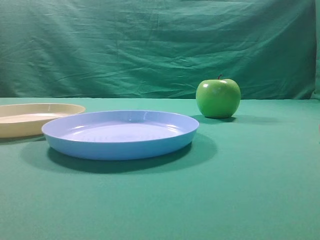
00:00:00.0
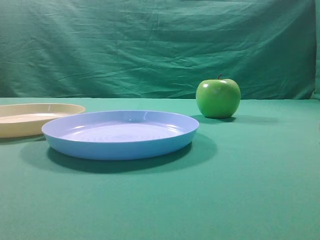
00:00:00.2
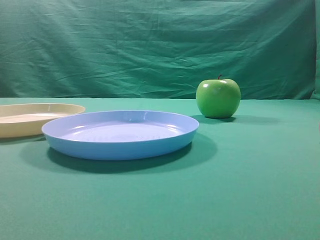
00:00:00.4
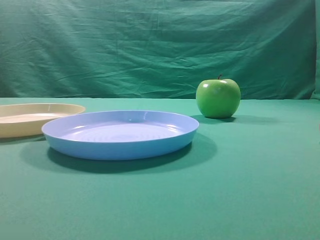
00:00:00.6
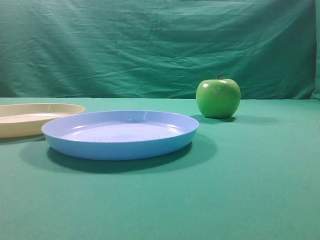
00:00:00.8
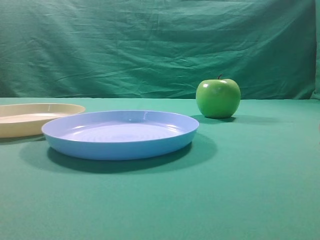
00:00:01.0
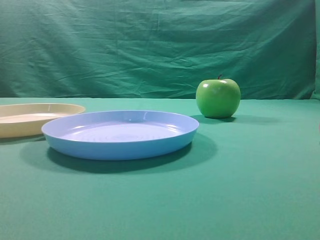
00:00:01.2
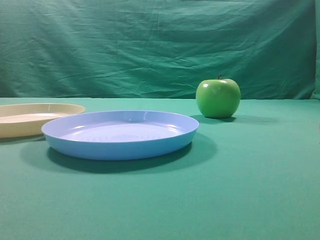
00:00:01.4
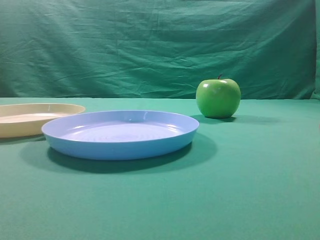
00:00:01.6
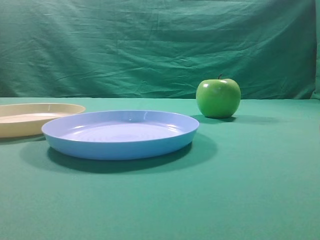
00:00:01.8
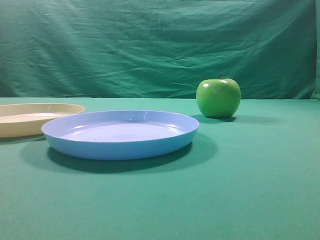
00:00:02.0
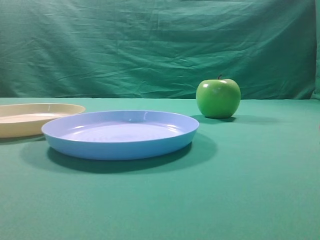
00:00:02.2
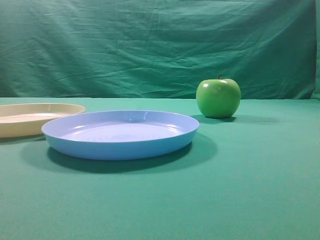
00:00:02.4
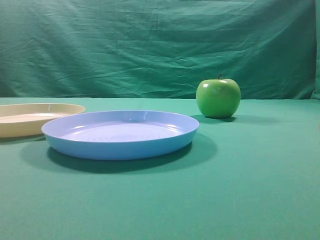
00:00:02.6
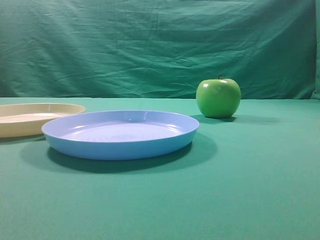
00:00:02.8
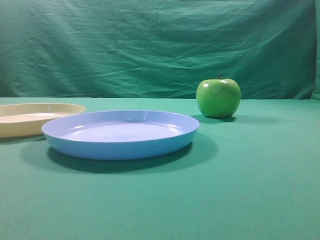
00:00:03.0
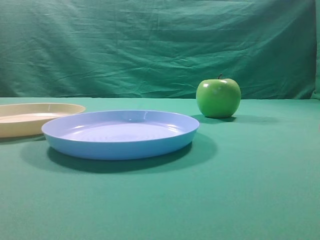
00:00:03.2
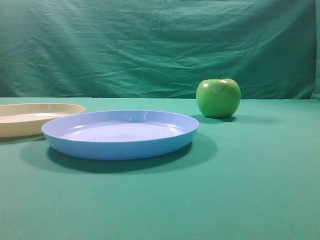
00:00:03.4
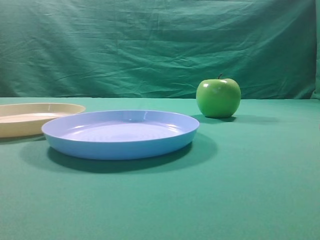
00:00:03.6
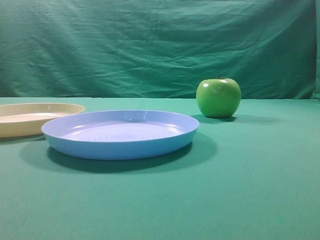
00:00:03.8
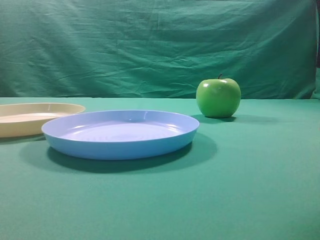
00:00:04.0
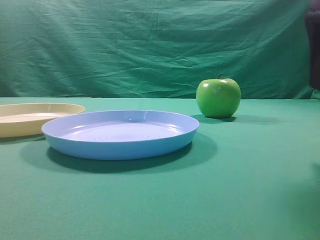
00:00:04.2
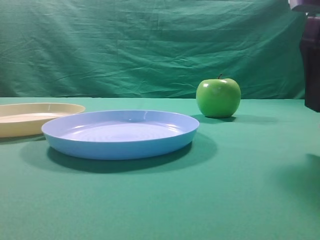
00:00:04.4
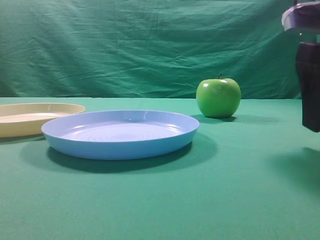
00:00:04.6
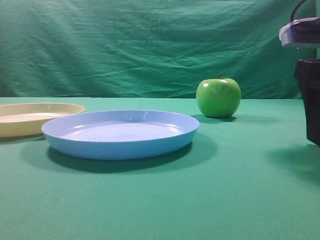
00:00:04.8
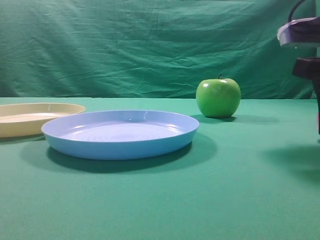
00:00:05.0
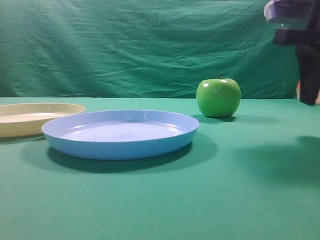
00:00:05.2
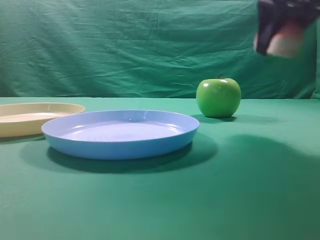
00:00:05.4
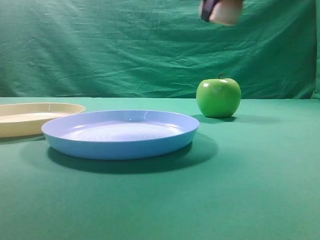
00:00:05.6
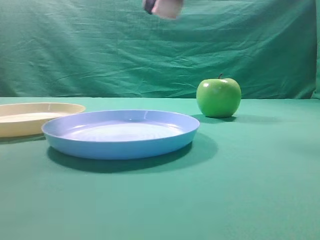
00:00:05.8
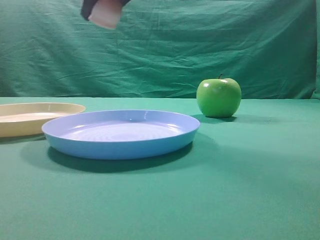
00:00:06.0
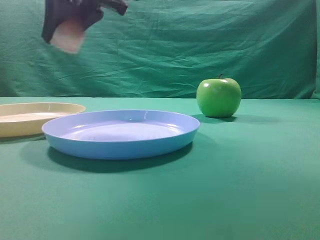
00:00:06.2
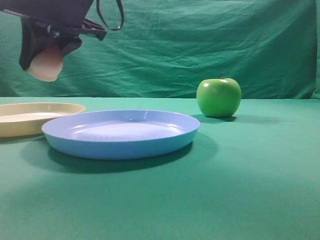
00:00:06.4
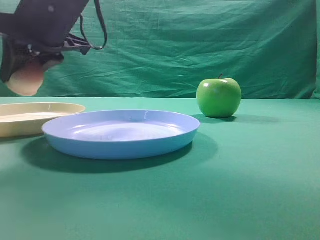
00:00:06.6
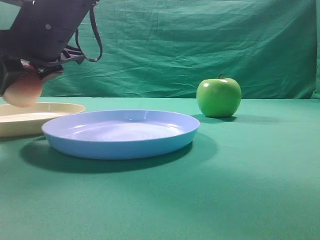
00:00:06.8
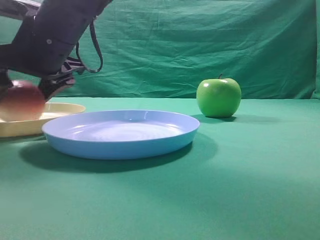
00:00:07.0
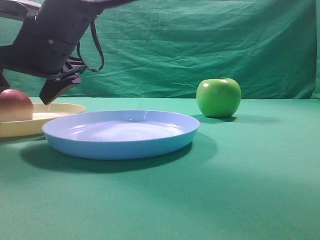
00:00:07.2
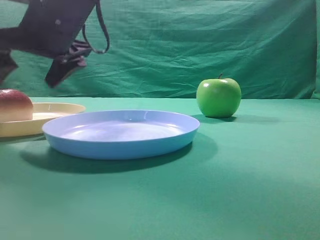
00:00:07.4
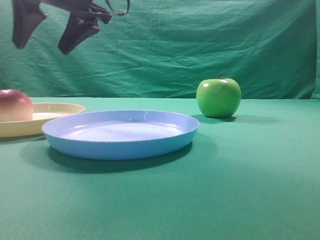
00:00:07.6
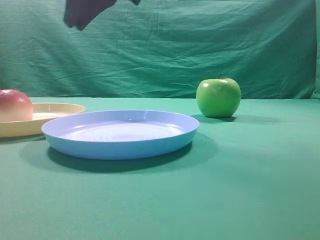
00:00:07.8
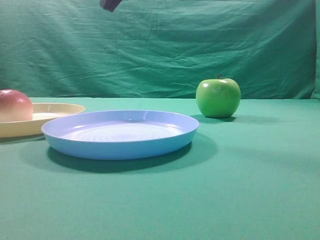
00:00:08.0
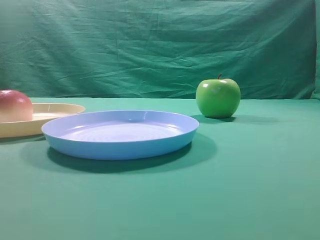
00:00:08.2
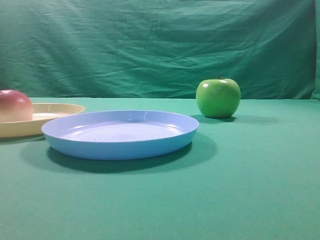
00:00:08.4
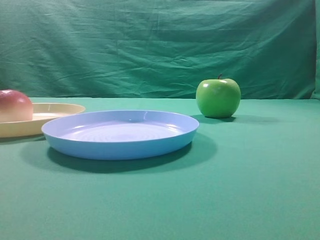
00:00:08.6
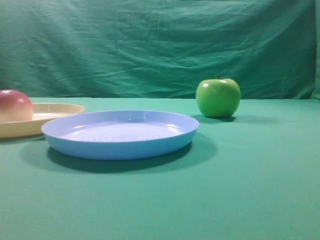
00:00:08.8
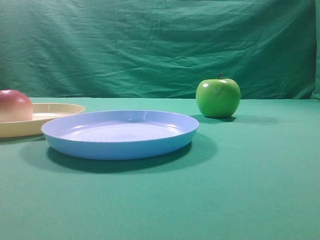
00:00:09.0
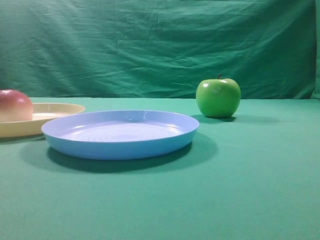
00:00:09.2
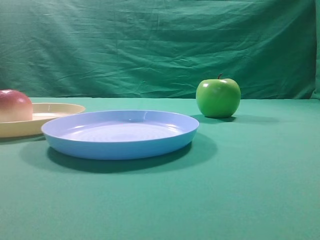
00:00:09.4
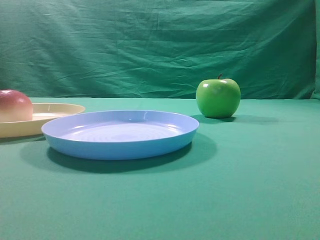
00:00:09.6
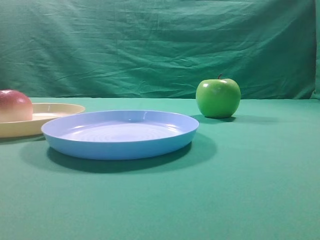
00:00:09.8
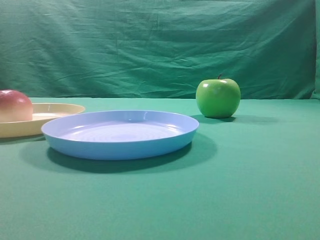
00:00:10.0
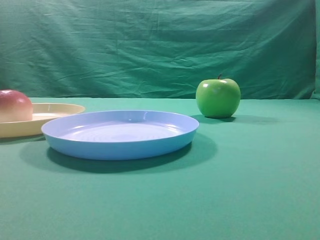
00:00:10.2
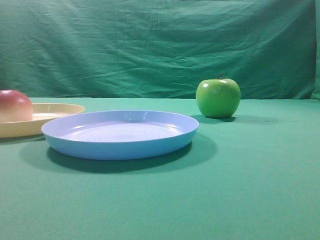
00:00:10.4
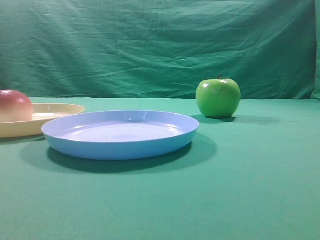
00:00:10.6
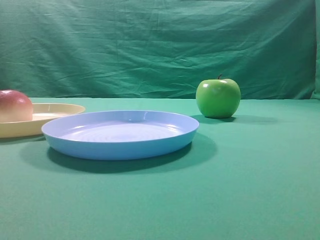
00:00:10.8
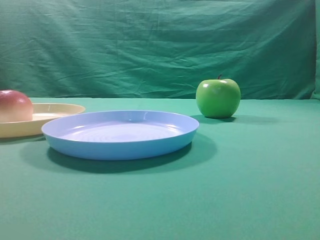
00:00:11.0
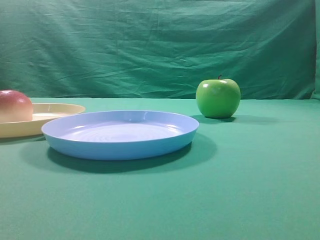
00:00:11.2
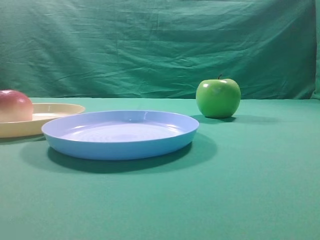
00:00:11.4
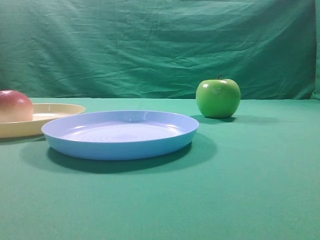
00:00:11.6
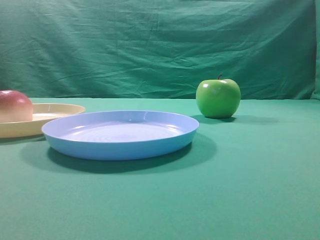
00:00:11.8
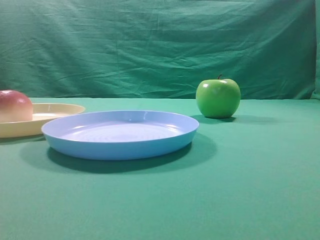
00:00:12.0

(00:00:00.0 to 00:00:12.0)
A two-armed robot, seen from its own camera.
Step, 00:00:05.4 - 00:00:07.4: Place the picked object on the yellow plate.

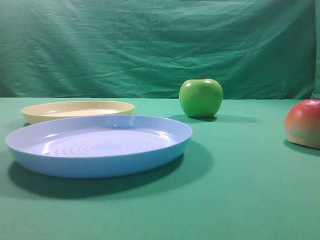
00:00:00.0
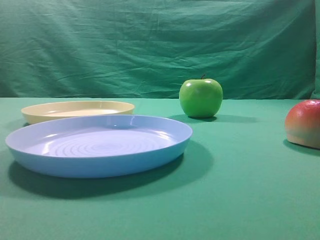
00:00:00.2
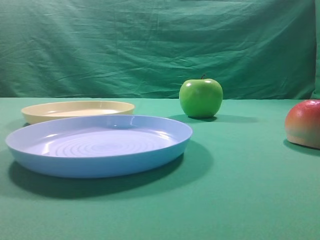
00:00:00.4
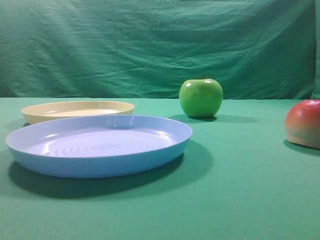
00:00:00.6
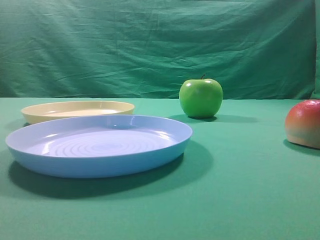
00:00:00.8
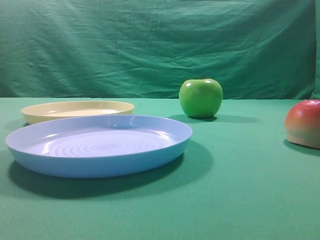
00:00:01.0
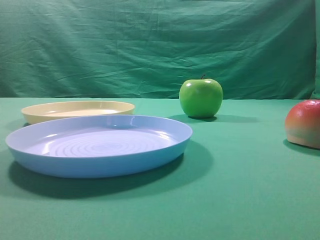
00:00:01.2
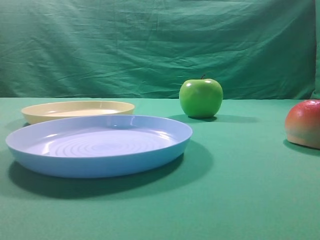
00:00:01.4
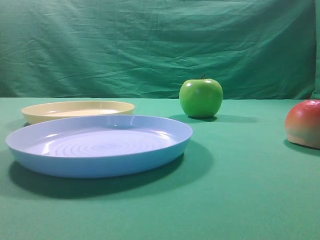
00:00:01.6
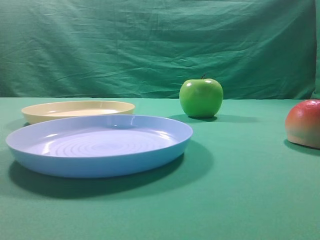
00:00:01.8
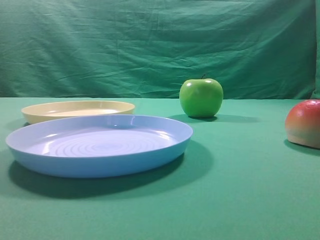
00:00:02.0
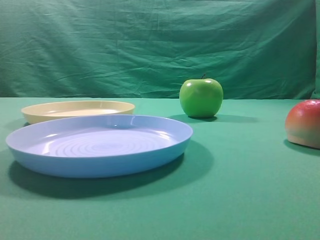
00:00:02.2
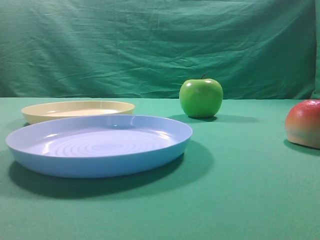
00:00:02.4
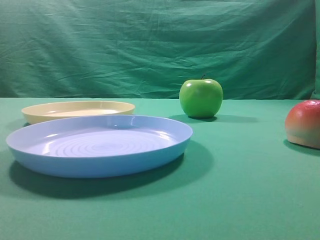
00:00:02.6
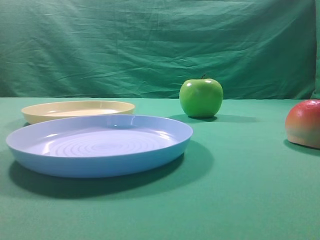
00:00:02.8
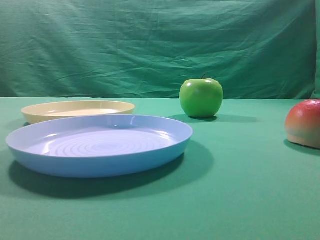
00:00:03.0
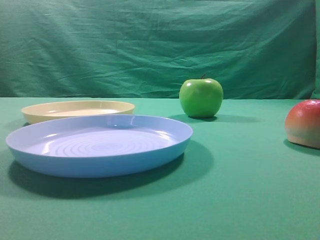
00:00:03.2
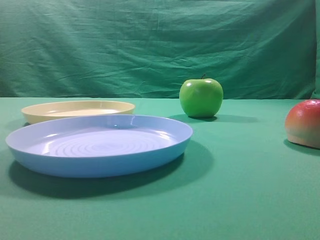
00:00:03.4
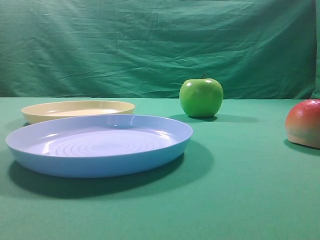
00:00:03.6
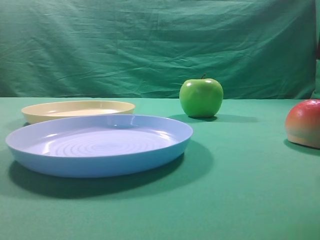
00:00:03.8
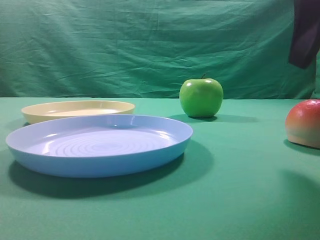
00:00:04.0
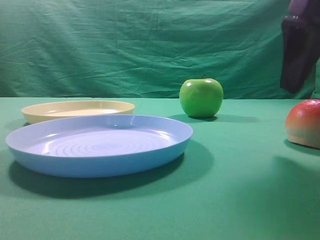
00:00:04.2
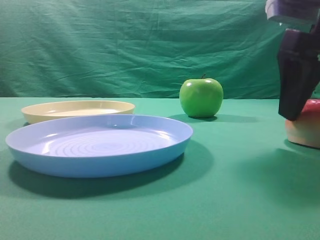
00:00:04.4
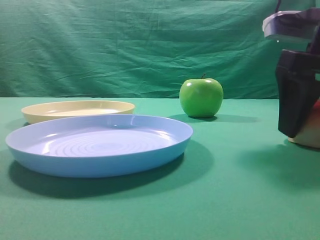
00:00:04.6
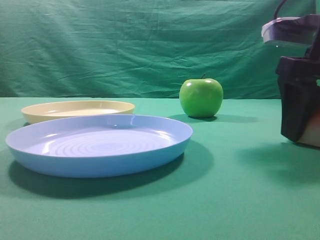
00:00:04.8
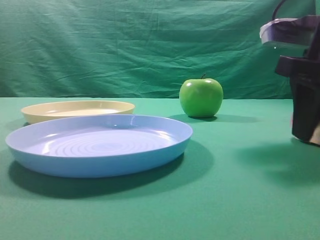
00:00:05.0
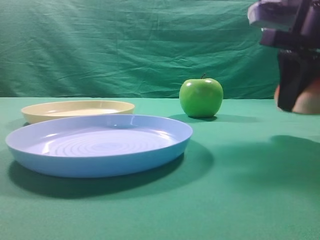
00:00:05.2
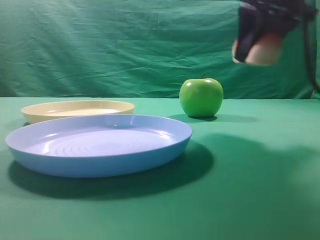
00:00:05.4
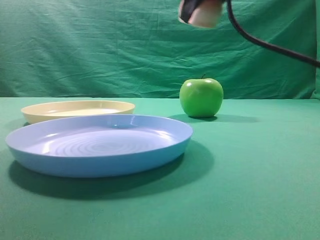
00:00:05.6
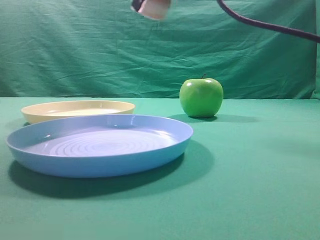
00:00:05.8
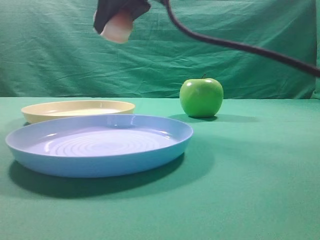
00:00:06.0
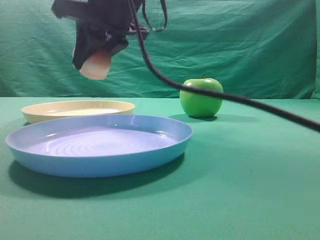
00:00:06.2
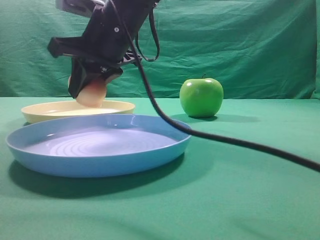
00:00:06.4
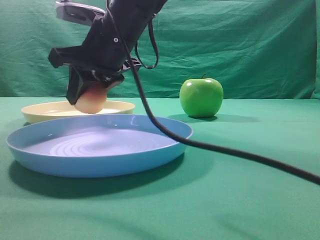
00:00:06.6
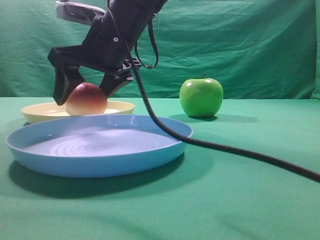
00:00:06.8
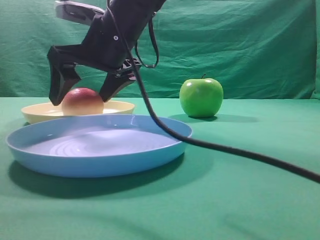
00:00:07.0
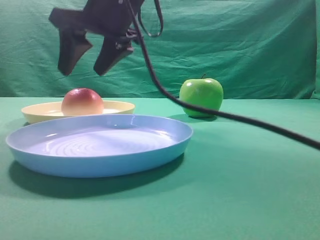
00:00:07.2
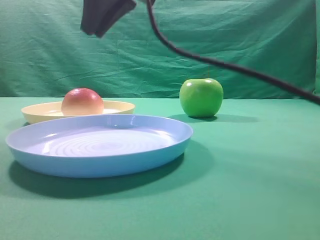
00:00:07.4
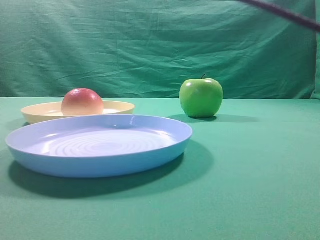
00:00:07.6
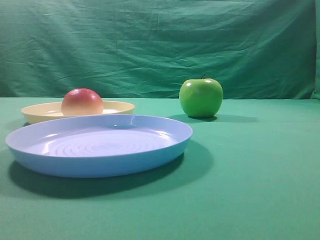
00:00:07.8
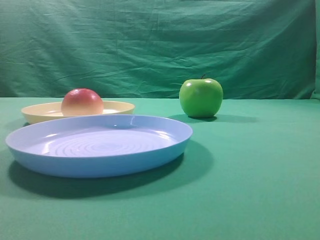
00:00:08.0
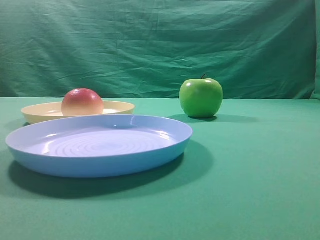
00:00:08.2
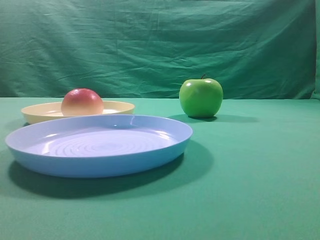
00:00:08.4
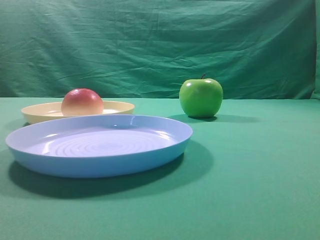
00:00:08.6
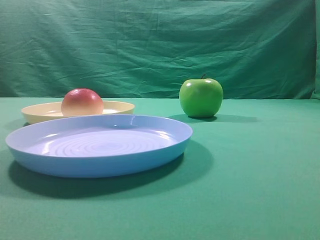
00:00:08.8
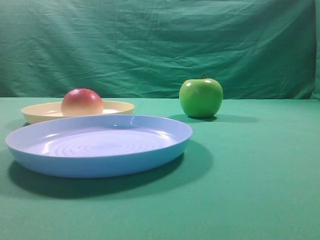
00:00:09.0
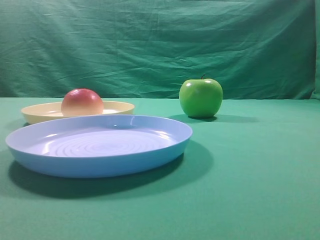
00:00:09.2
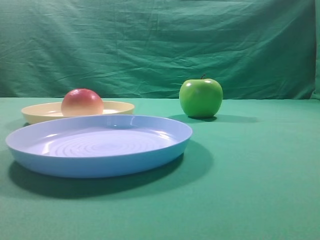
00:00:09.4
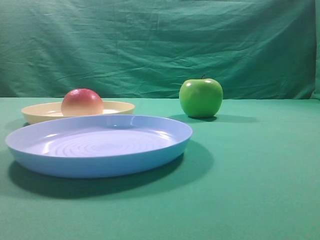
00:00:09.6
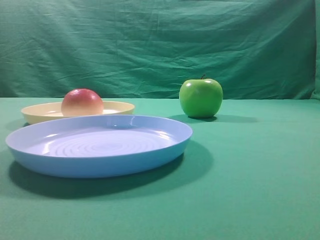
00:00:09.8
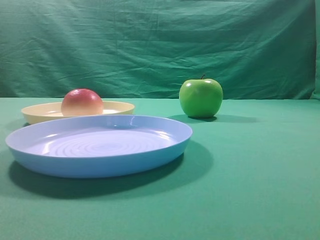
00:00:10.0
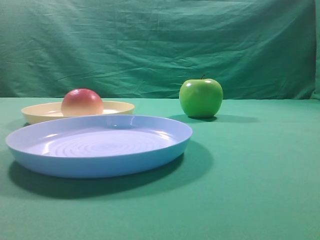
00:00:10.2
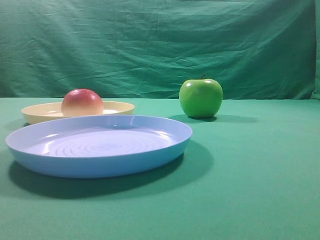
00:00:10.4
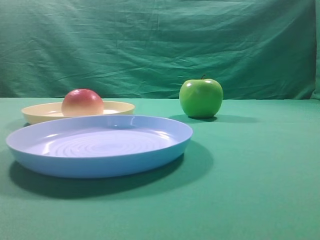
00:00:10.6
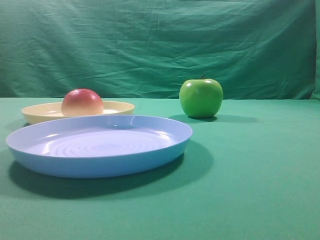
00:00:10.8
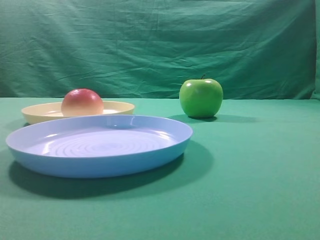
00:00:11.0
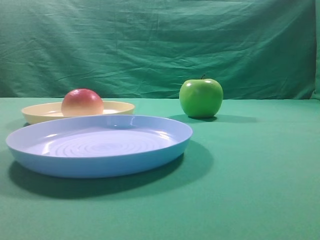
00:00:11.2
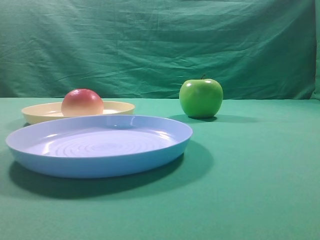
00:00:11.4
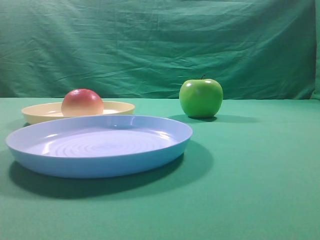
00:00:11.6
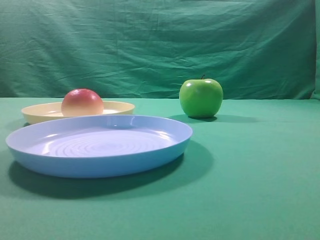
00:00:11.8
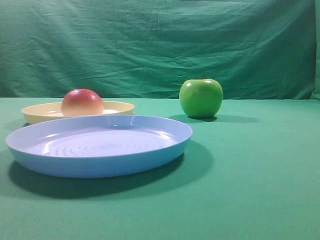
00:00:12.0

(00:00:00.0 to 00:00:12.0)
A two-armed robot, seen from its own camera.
Step, 00:00:05.4 - 00:00:07.0: Place the picked object on the yellow plate.
